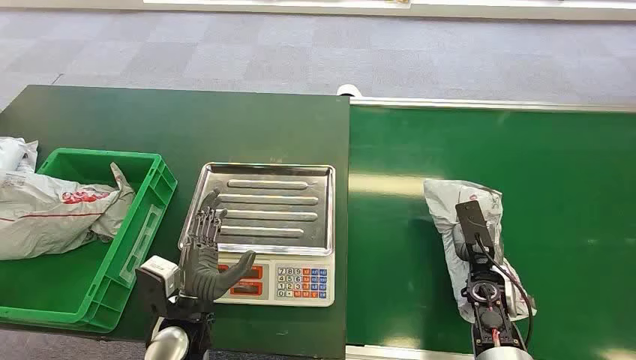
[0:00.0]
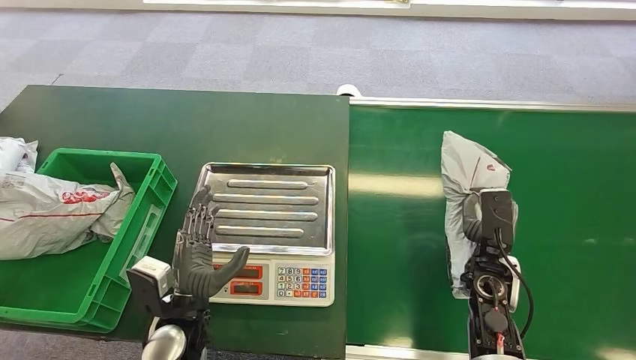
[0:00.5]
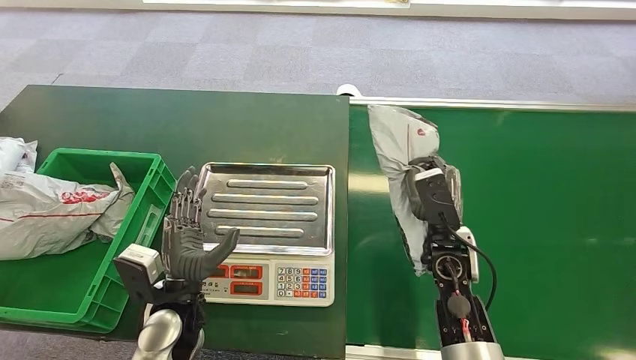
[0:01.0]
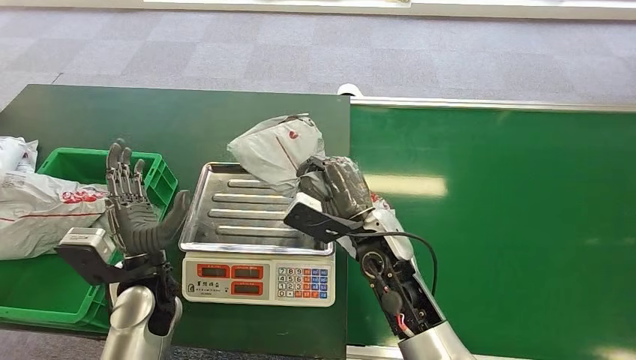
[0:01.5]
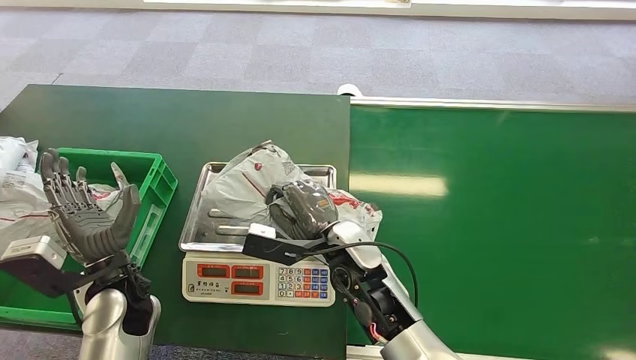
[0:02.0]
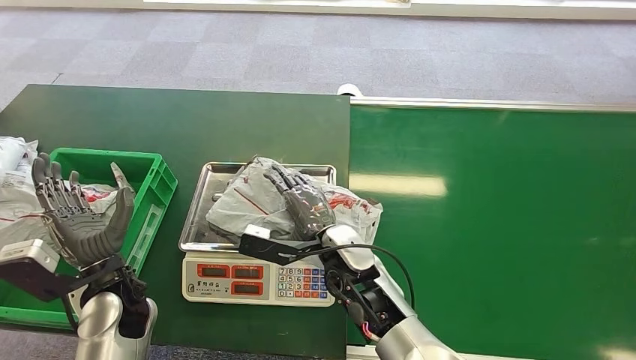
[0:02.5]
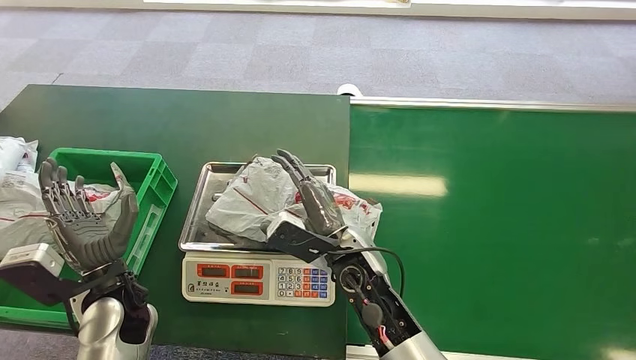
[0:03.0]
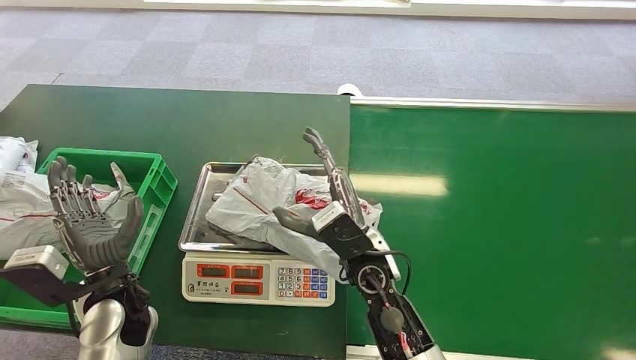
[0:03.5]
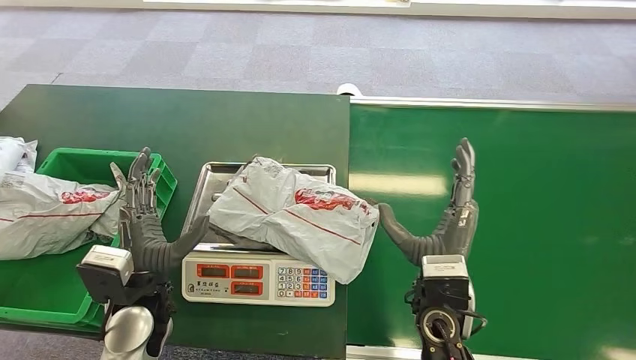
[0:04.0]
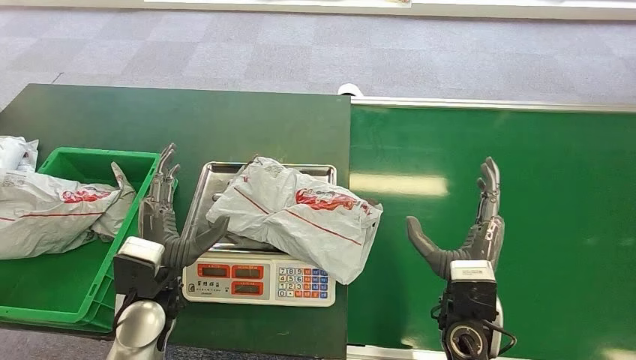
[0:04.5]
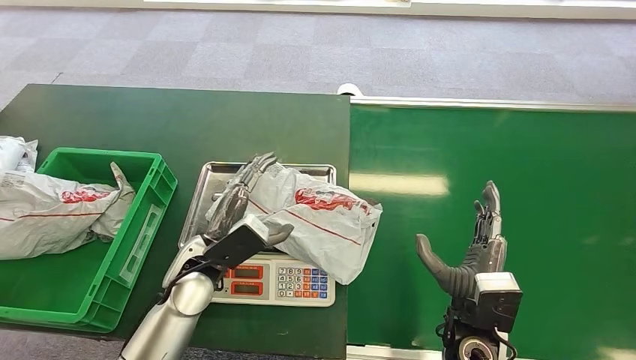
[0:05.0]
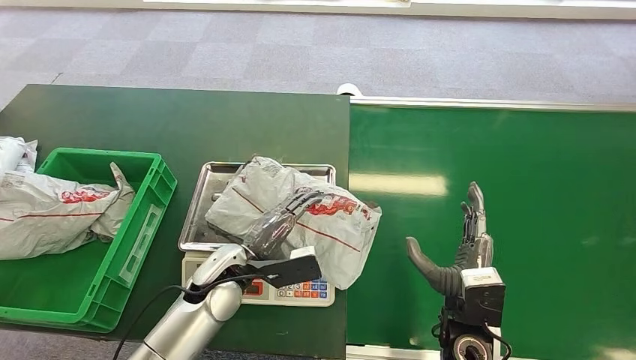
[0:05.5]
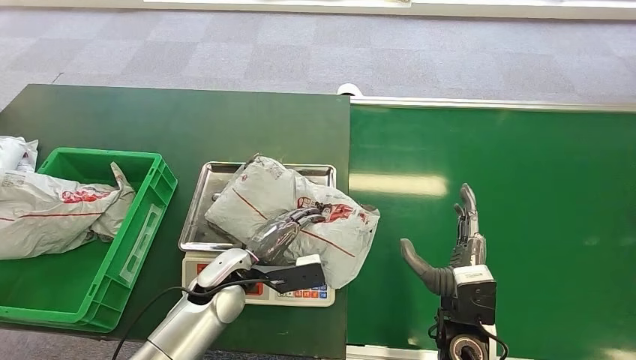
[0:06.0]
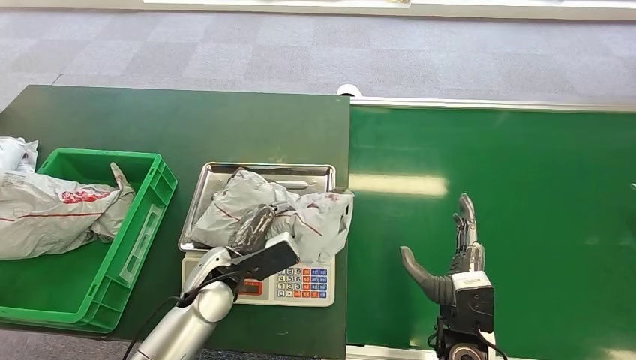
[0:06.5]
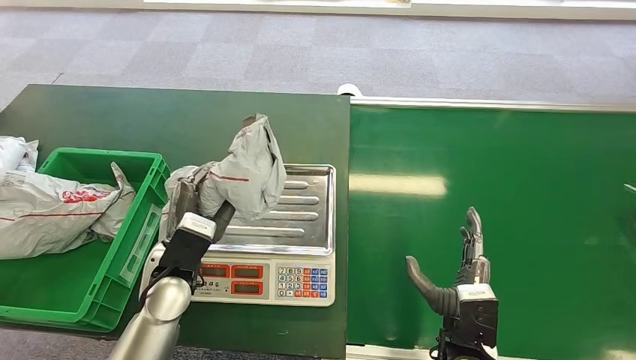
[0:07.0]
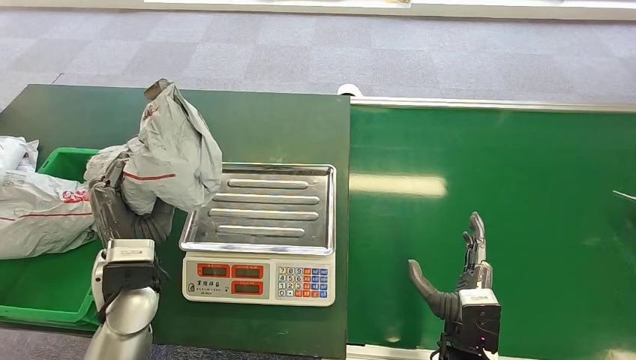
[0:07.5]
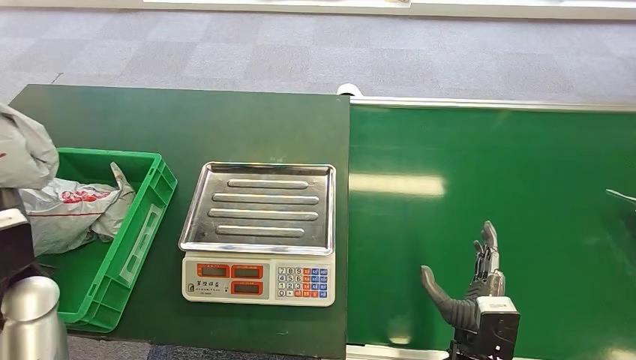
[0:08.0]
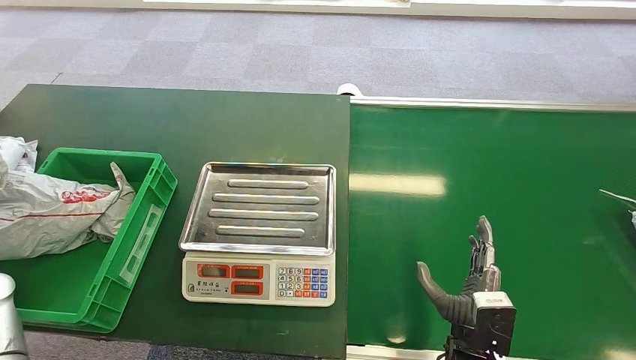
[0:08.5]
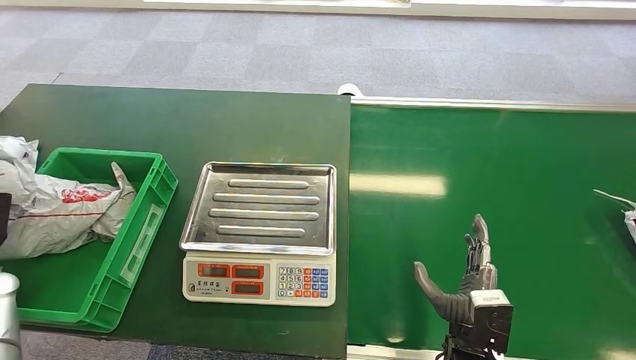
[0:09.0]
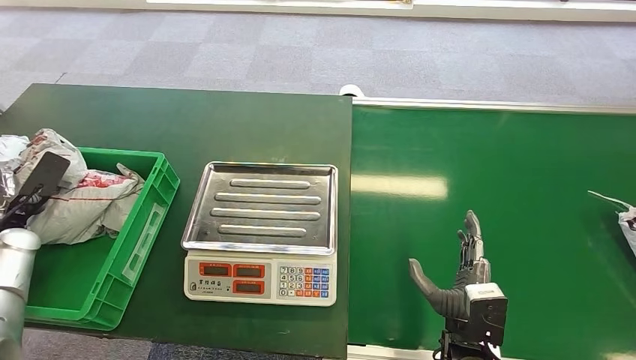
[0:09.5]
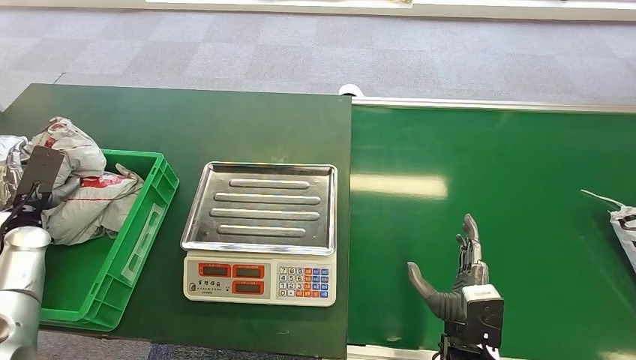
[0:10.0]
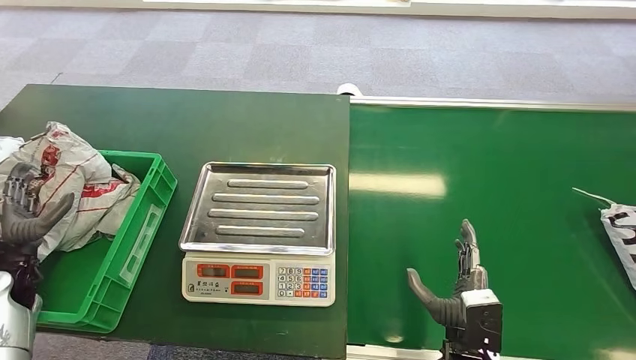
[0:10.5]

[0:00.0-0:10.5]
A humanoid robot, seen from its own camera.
Step, 0:00.0 to 0:01.0: Pick up the package from the conveyor belt.
Step, 0:01.5 to 0:03.5: Place the package onto the inbound machine.
Step, 0:06.0 to 0:07.5: Pick up the package from the inbound machine.
Step, 0:08.0 to 0:10.5: Place the package into the parcel locker.
0:02.0 to 0:04.0: The right hand travels to the right and backward by about 10 cm.
0:04.0 to 0:06.5: The left hand shifts about 10 cm to the right and forward, while the right hand travels downward and to the right by some 10 cm.
0:06.5 to 0:08.5: The left hand travels to the left by about 35 cm.
0:08.5 to 0:10.5: The left hand travels forward and back again, roughly 10 cm each way.
